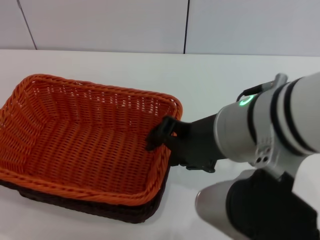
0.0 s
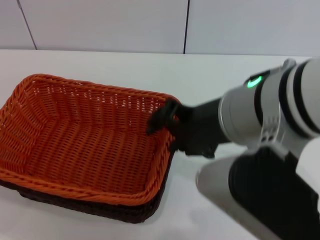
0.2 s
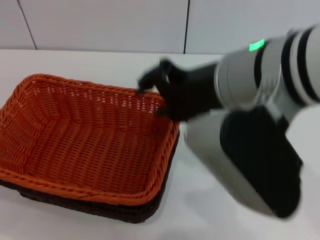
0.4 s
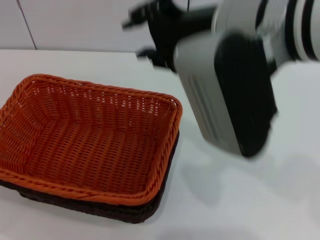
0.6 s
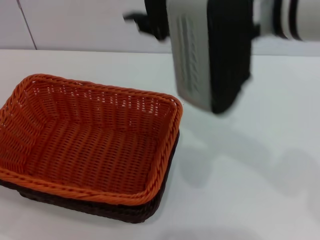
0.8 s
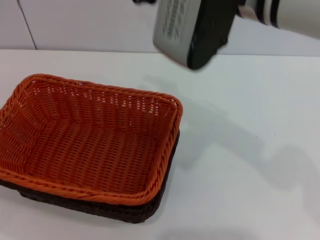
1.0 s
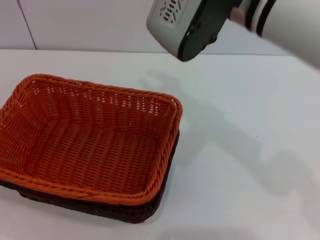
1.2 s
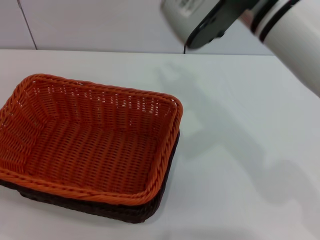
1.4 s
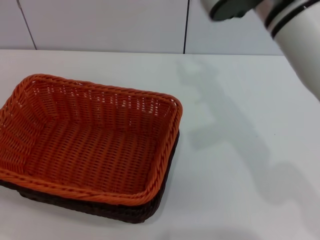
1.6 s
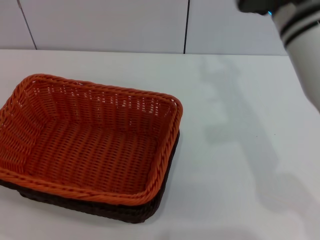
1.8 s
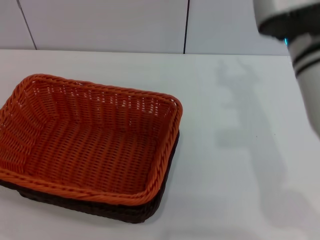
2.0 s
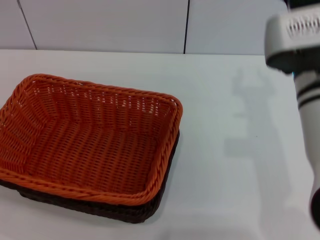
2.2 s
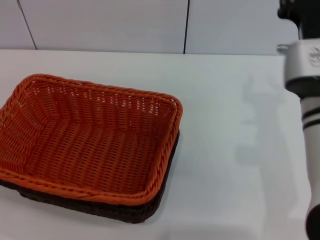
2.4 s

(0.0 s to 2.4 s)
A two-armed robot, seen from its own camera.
0.0 s - 1.2 s: The right gripper shifts approximately 10 cm forward.
1.2 s - 2.4 s: The right gripper heads downward and to the right, covering roughly 15 cm.
